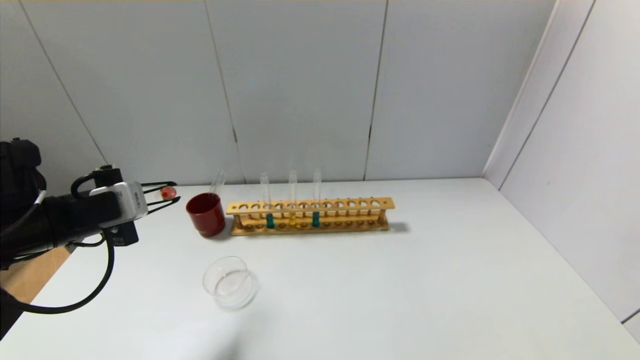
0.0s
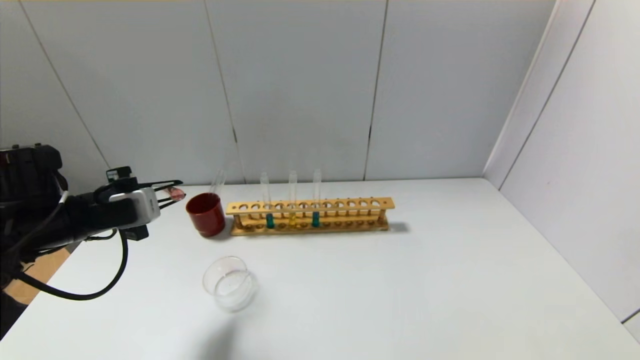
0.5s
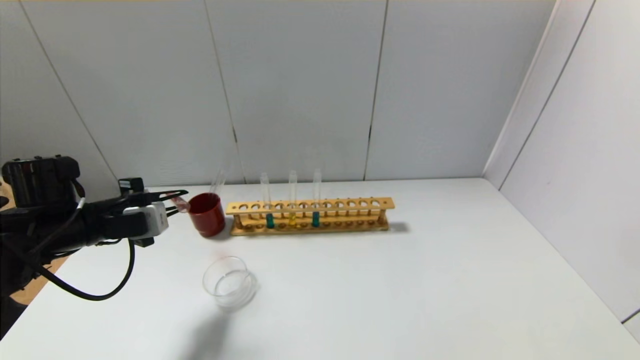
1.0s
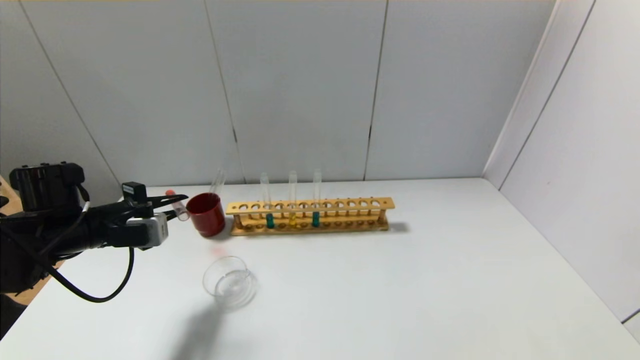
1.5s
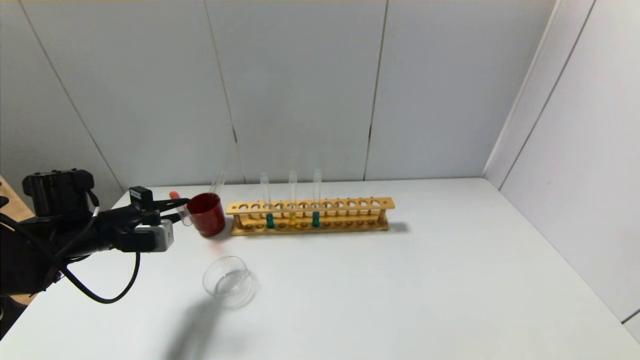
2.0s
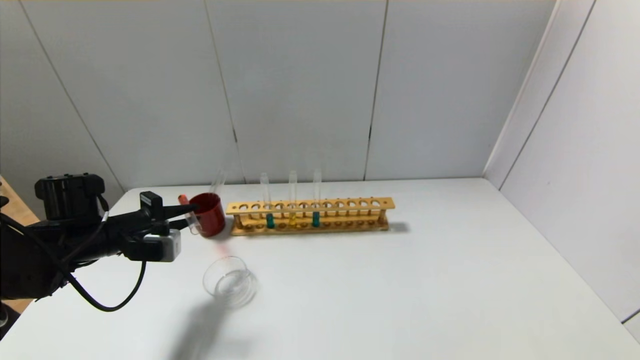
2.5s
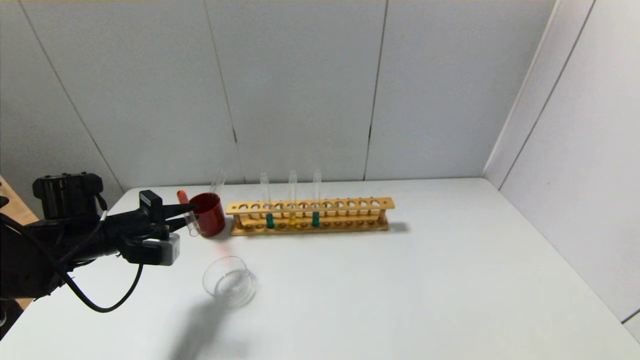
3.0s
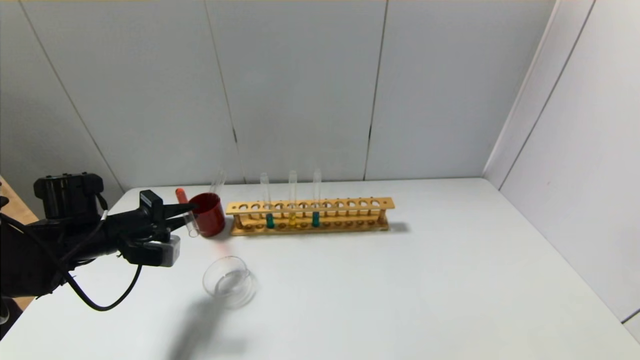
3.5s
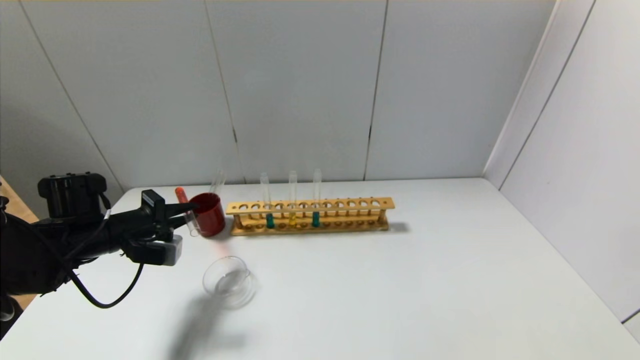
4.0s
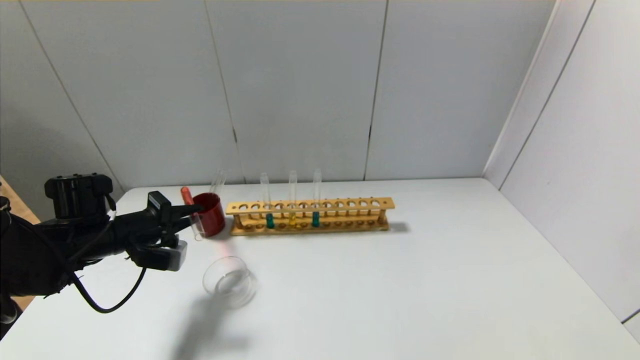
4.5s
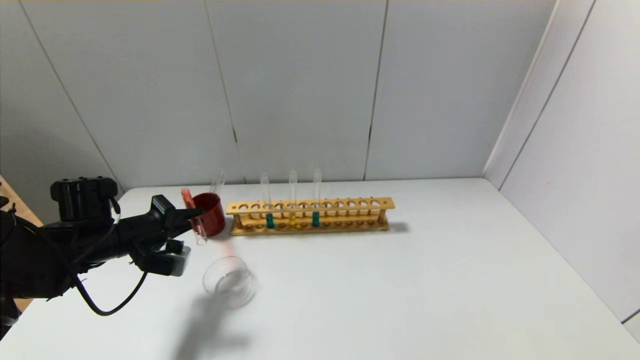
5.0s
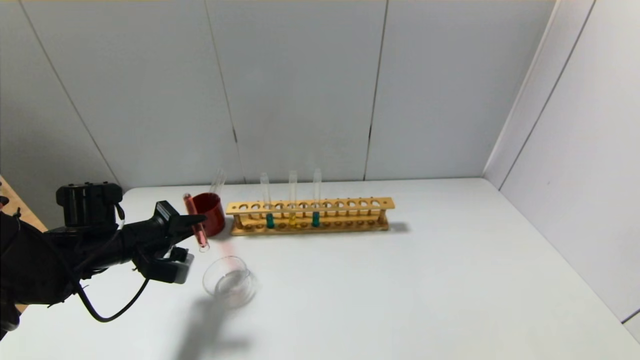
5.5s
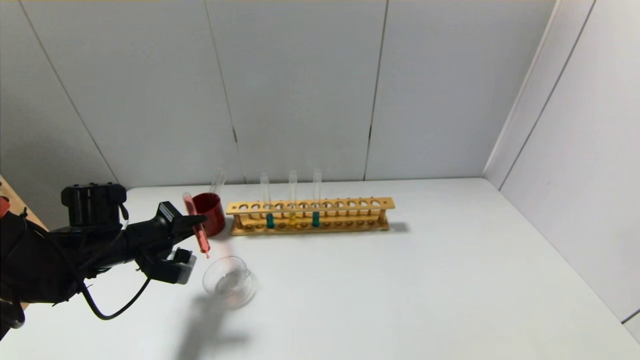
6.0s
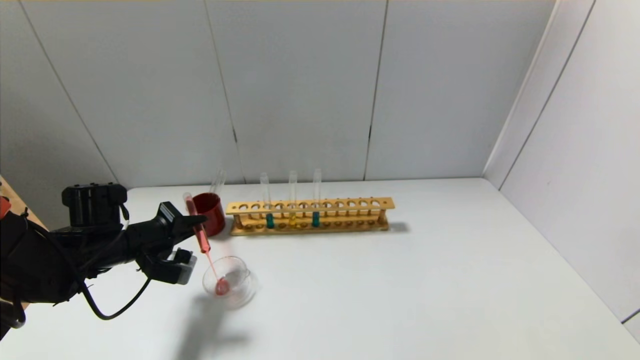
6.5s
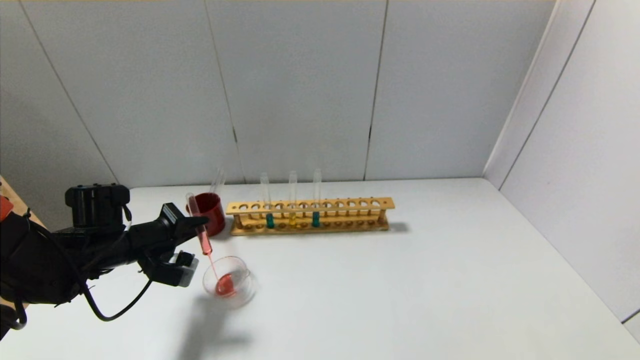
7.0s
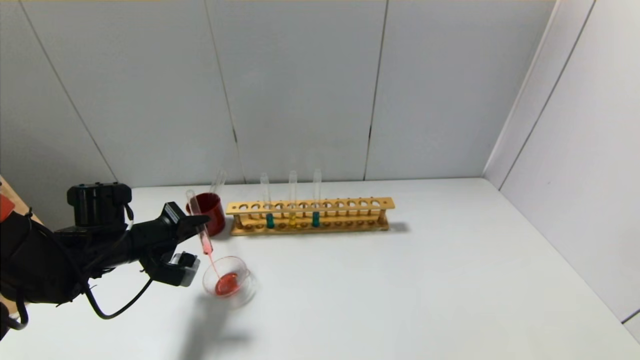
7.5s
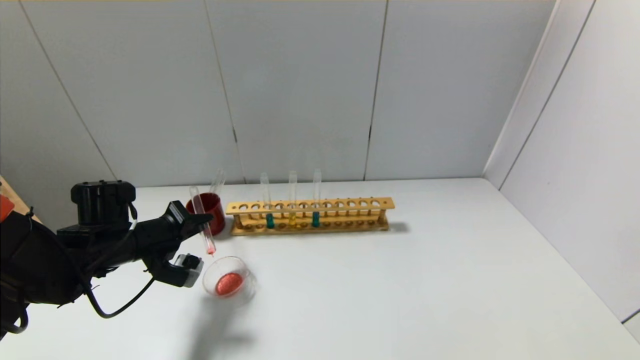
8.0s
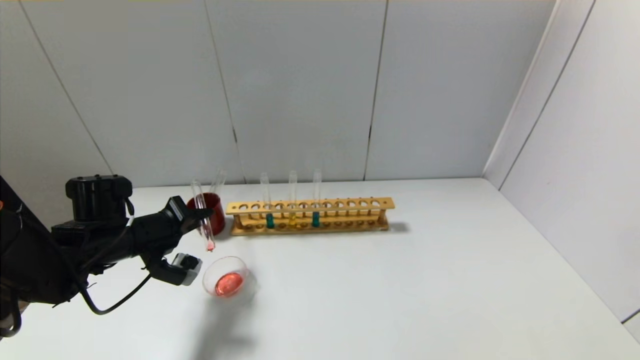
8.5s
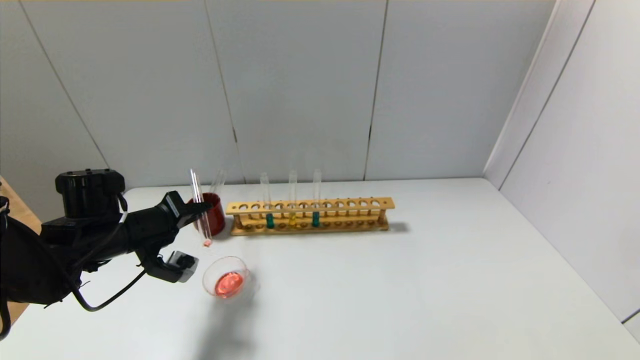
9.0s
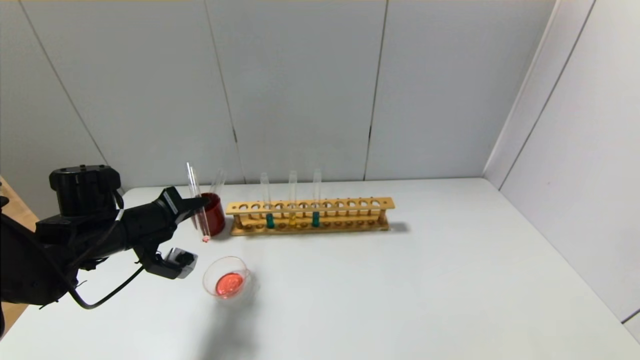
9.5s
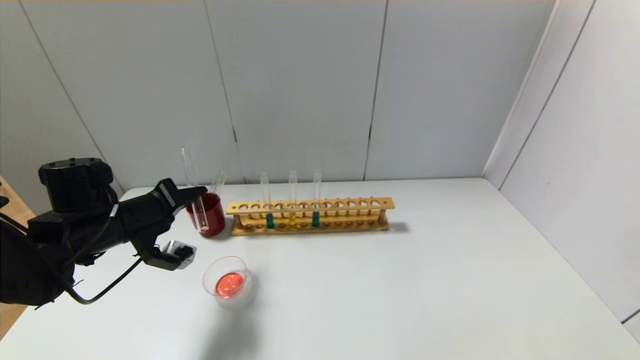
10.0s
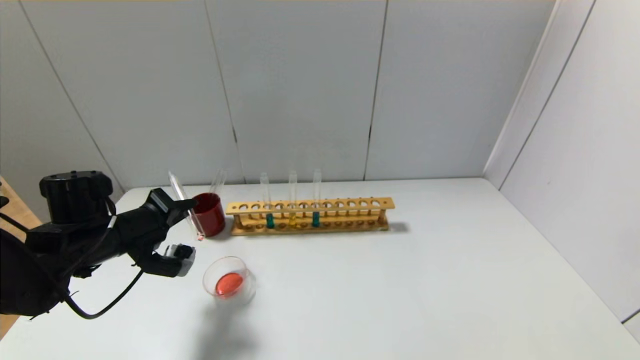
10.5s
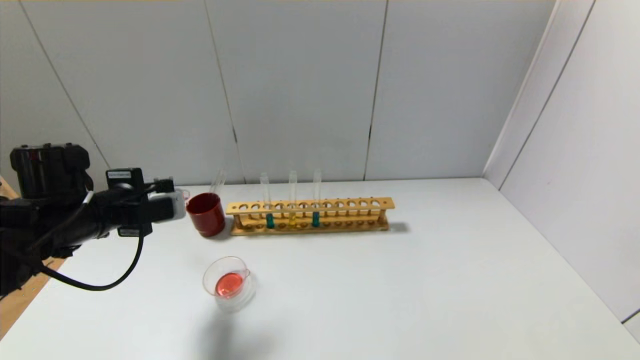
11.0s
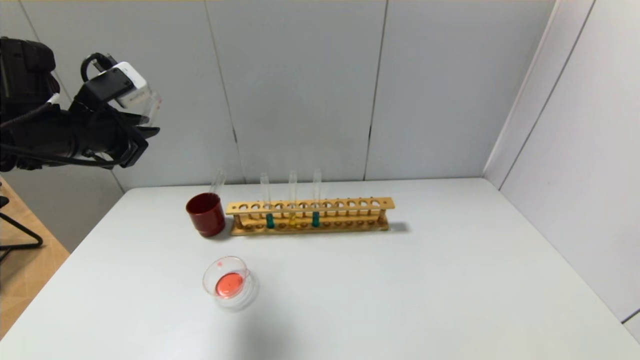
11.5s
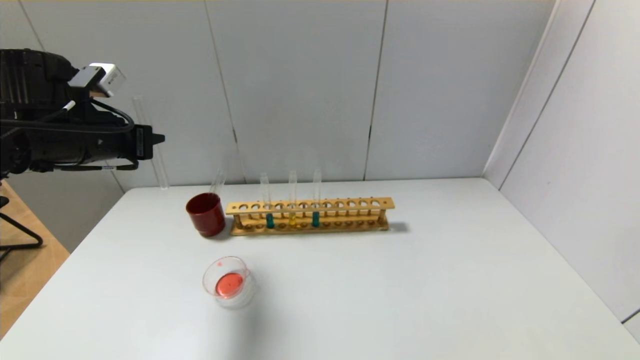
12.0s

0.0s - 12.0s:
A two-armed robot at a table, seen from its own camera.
Step, 0.0s - 10.5s: Pour the red reagent into the graduated cylinder with the left gripper.
0.0s - 2.0s: The left gripper moves downward and forward, roughly 10 cm.
2.0s - 4.0s: The grippers move only a little.
4.0s - 8.0s: There are only small adjustments of the grippers.
10.0s - 12.0s: The left gripper moves upward, roughly 10 cm.

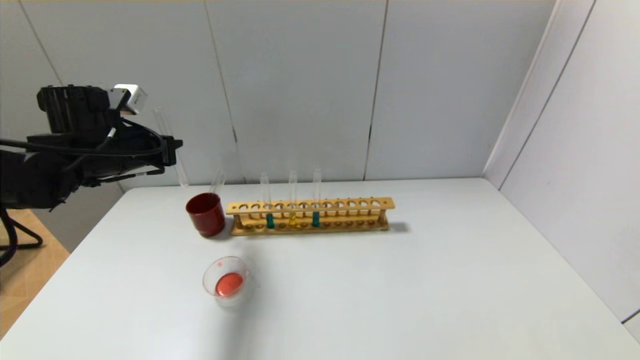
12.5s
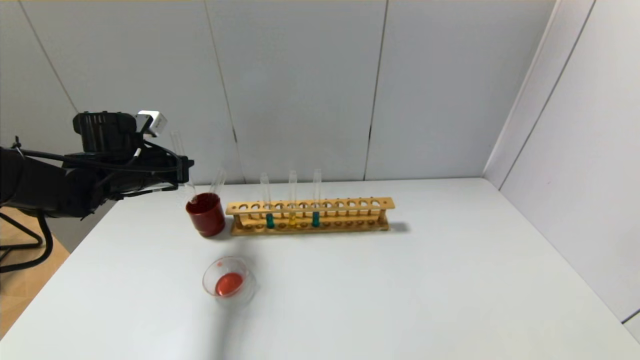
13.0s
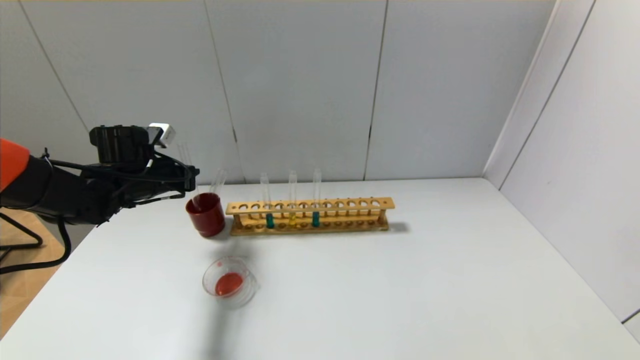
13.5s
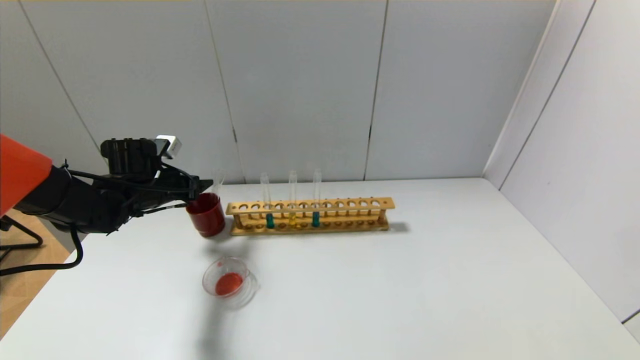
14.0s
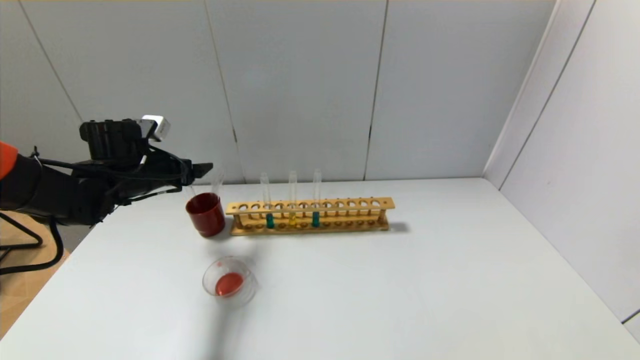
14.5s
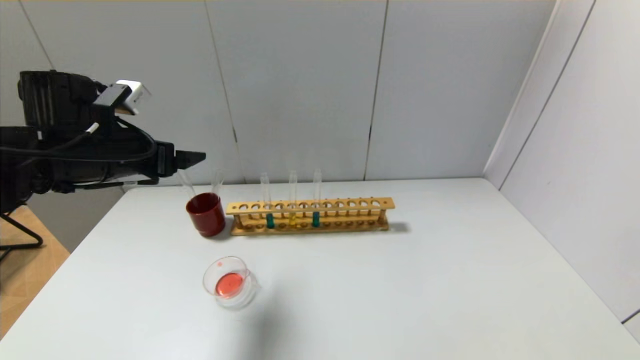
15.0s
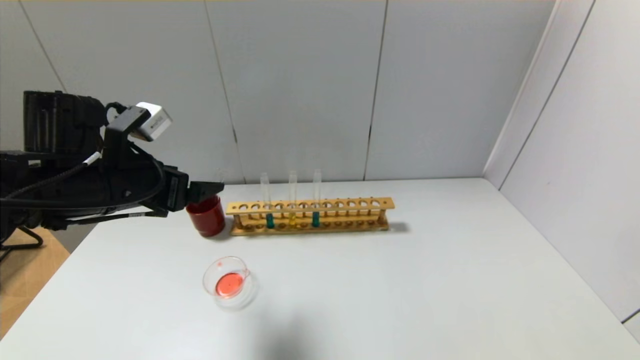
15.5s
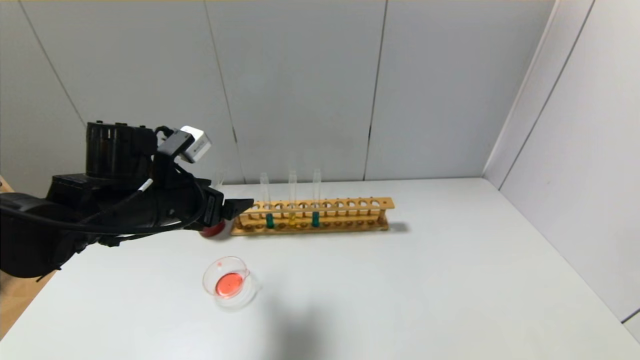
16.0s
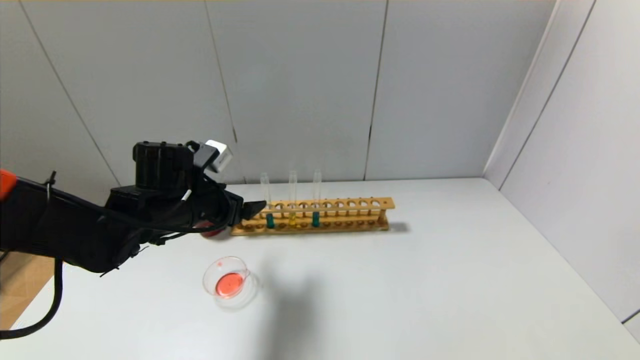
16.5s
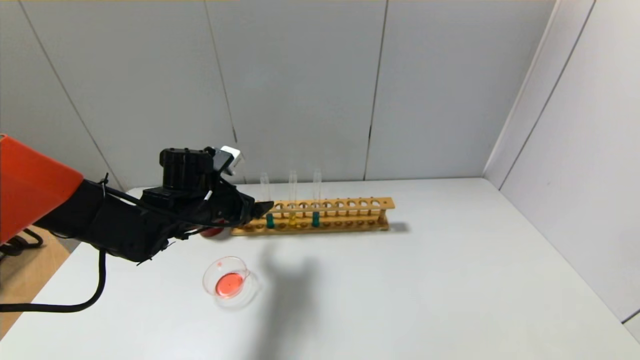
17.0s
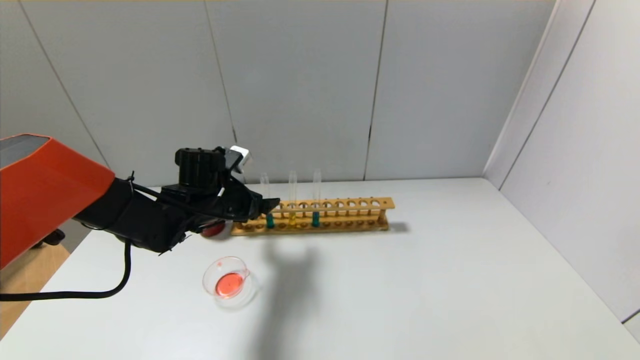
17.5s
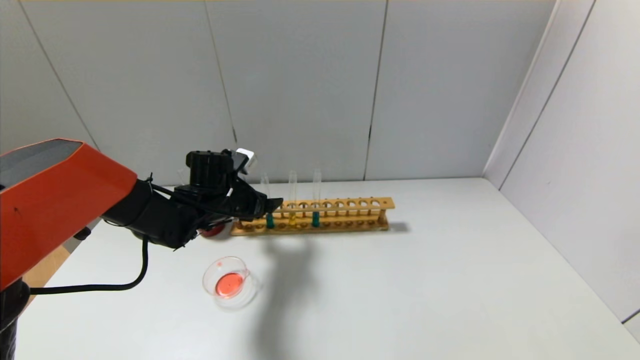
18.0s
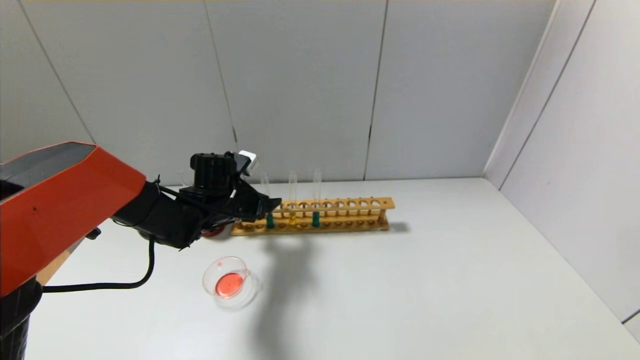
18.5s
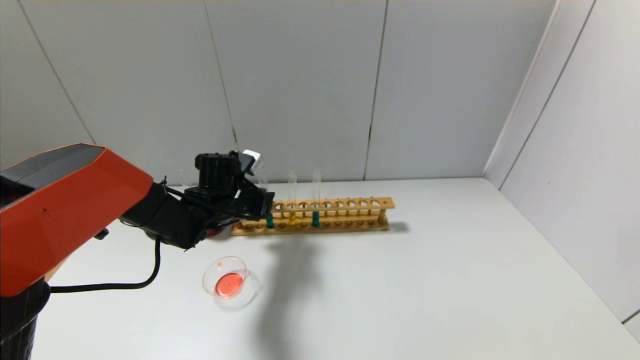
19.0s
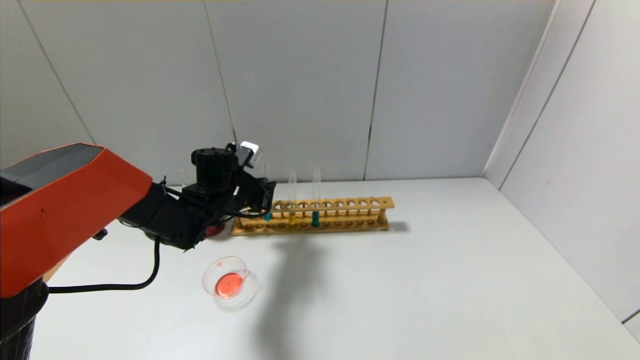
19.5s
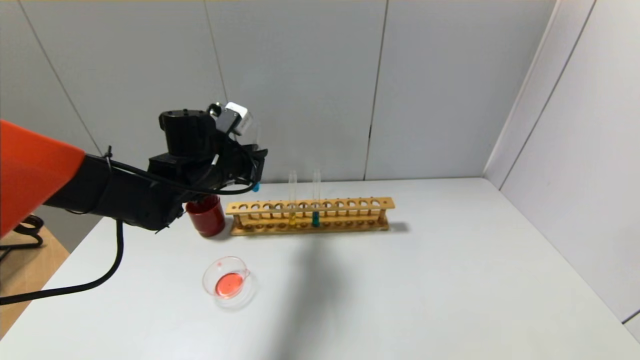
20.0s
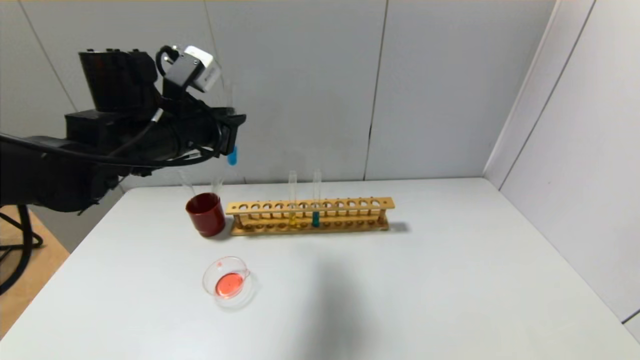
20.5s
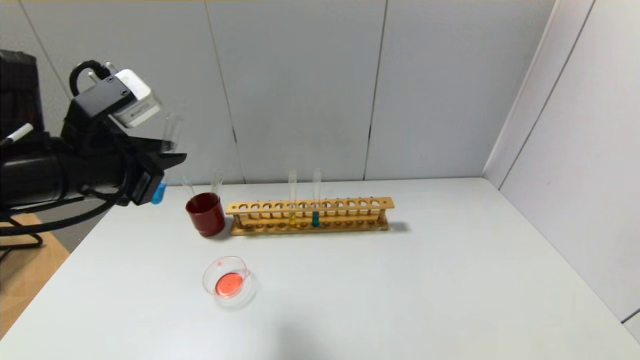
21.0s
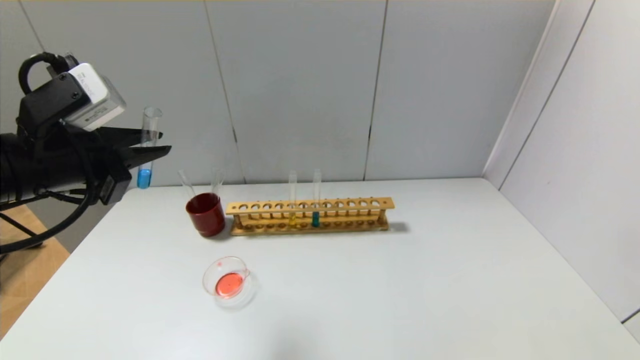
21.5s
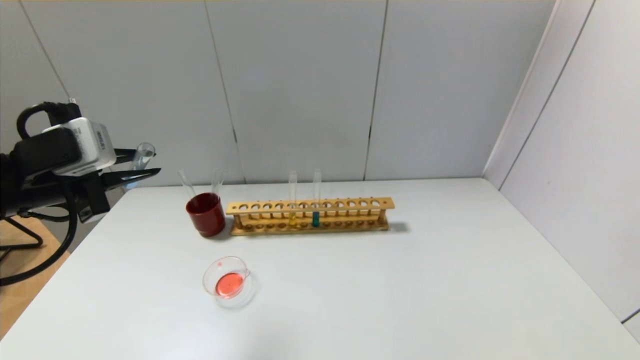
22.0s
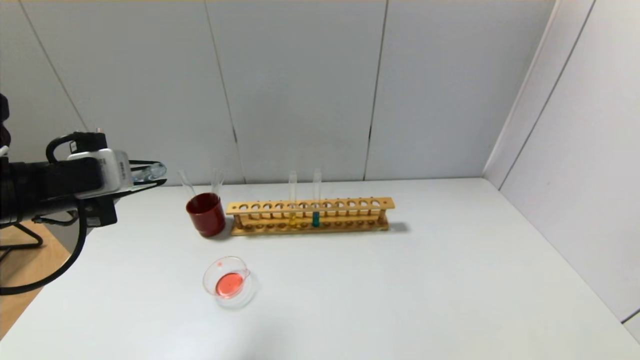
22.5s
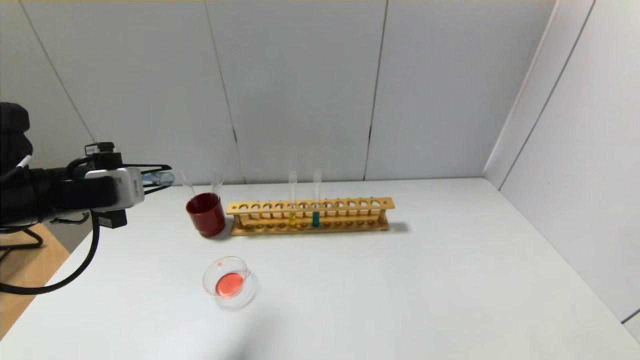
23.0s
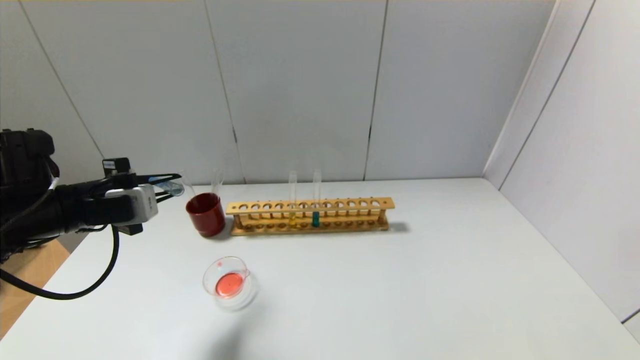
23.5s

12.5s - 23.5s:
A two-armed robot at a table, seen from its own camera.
Step, 14.0s - 19.0s: Grasp the blue reagent with the left gripper.
12.5s - 14.5s: The left gripper opens its fingers.
14.5s - 16.0s: The left gripper travels backward and to the right by about 15 cm.
16.0s - 18.0s: The left gripper heads forward and downward, covering some 15 cm.
18.0s - 20.0s: The left gripper shifts roughly 10 cm upward, and closes up.
20.0s - 21.5s: The left gripper moves backward, to the left and upward, some 20 cm.
21.5s - 23.5s: The left gripper travels downward and forward by some 10 cm.
